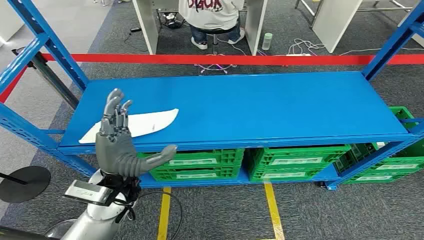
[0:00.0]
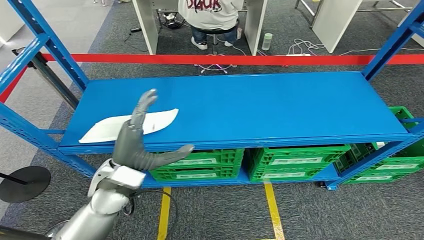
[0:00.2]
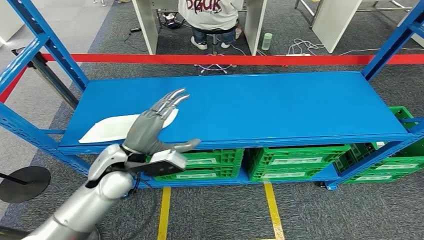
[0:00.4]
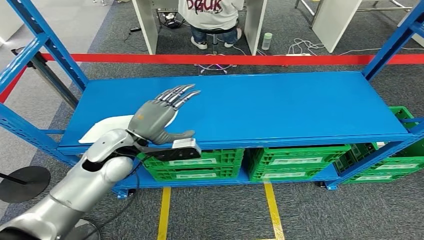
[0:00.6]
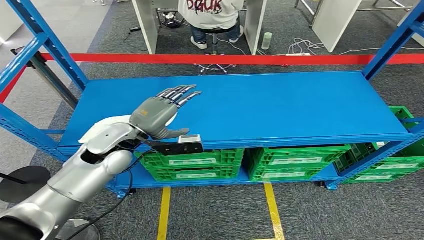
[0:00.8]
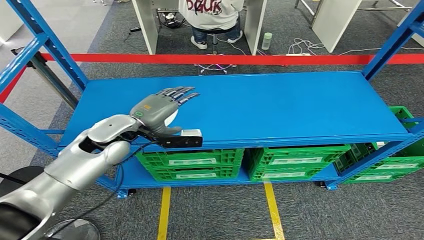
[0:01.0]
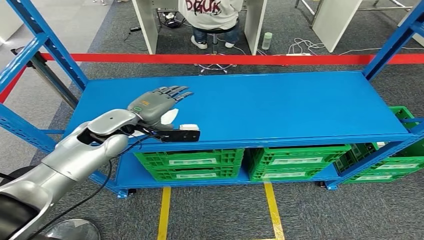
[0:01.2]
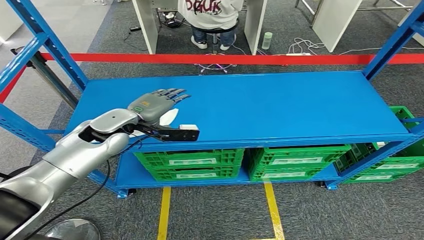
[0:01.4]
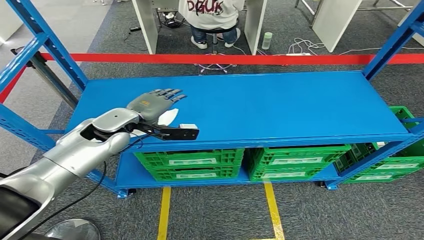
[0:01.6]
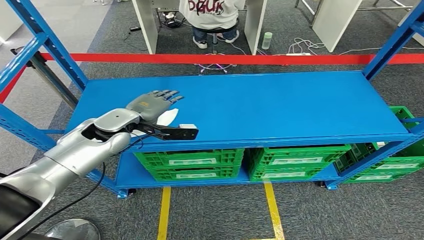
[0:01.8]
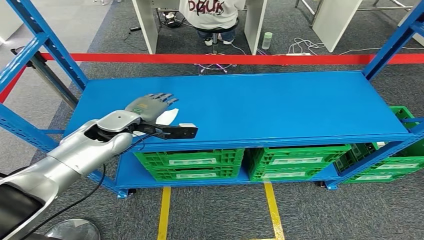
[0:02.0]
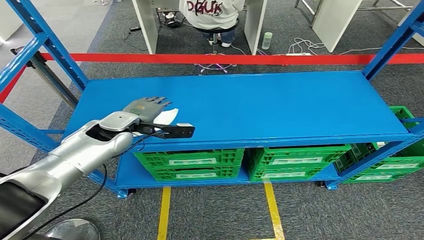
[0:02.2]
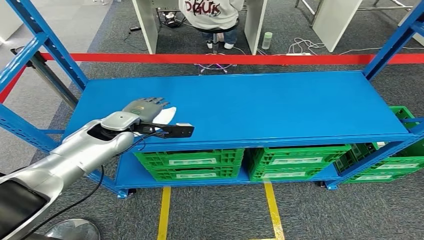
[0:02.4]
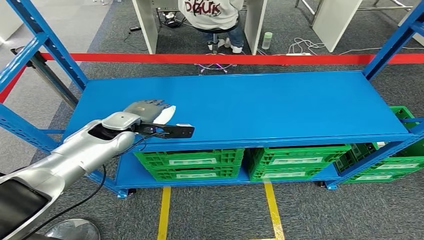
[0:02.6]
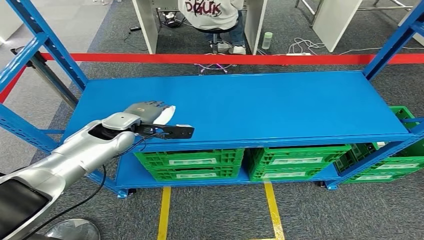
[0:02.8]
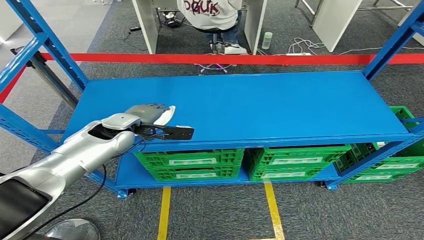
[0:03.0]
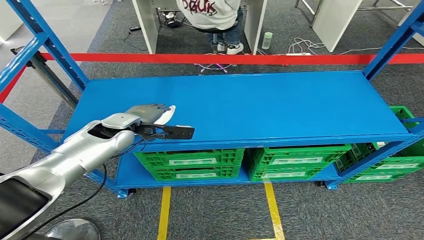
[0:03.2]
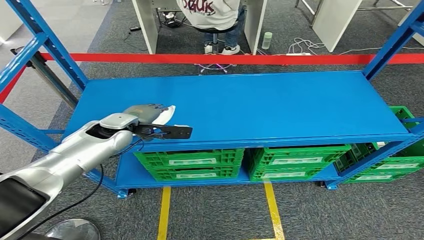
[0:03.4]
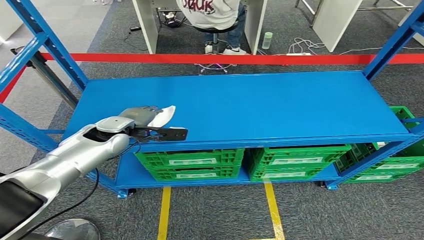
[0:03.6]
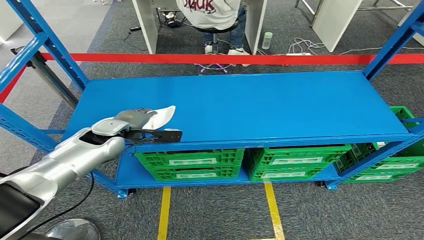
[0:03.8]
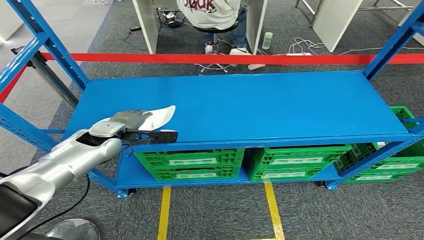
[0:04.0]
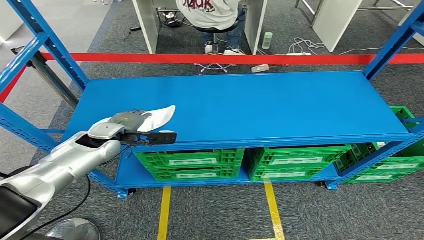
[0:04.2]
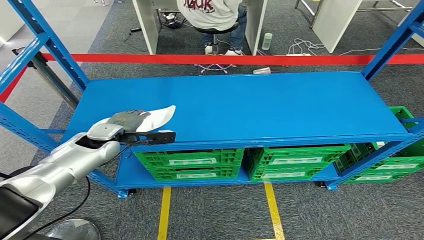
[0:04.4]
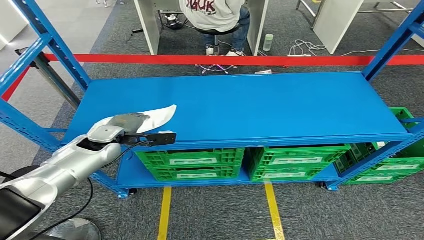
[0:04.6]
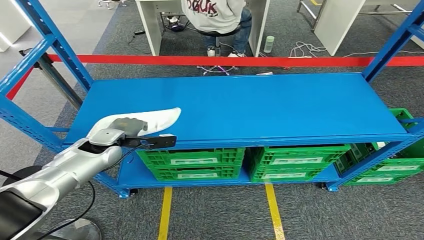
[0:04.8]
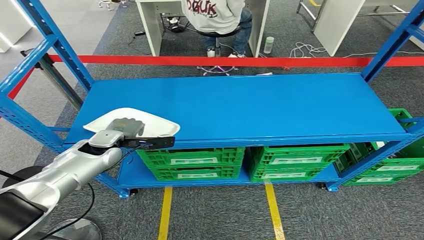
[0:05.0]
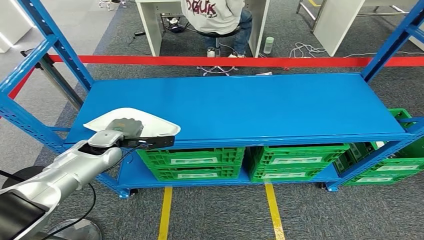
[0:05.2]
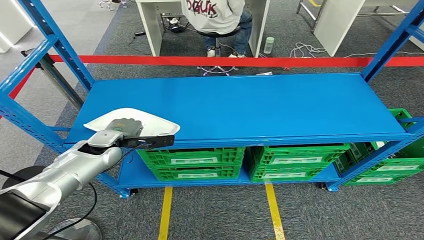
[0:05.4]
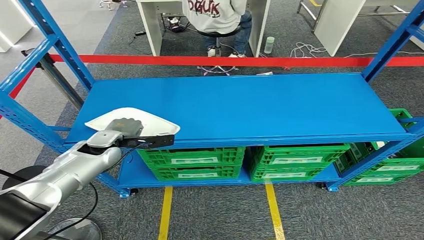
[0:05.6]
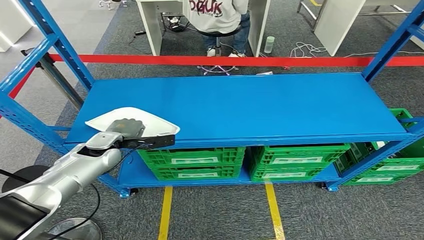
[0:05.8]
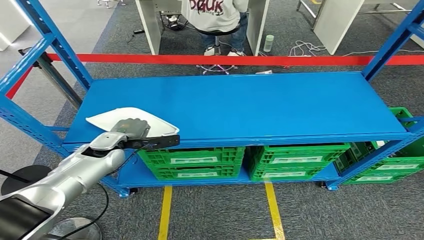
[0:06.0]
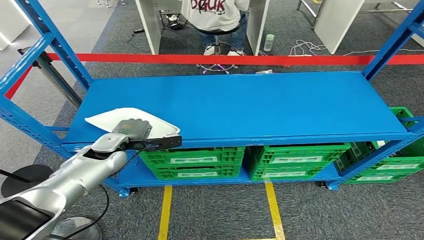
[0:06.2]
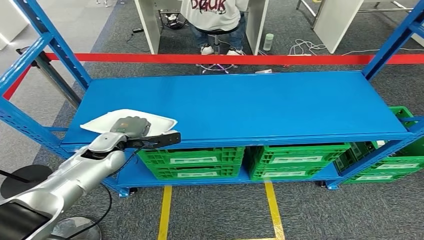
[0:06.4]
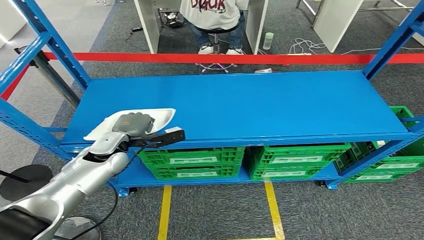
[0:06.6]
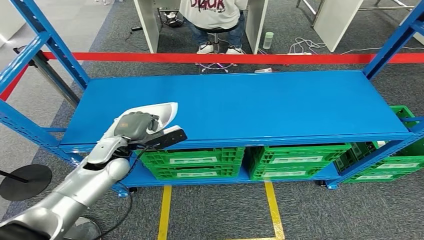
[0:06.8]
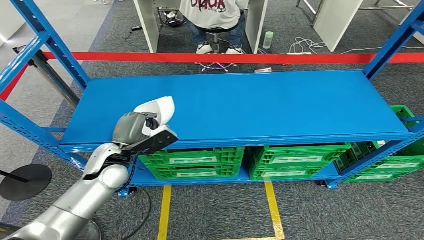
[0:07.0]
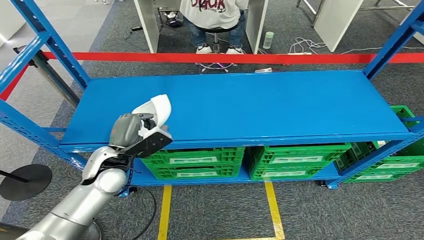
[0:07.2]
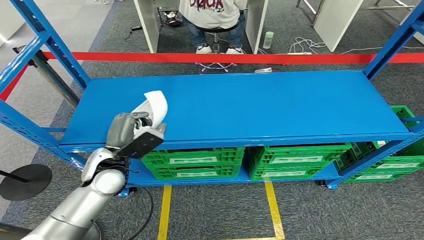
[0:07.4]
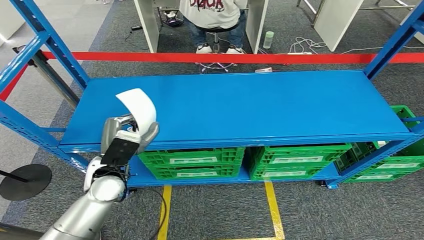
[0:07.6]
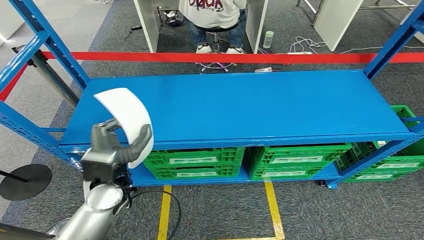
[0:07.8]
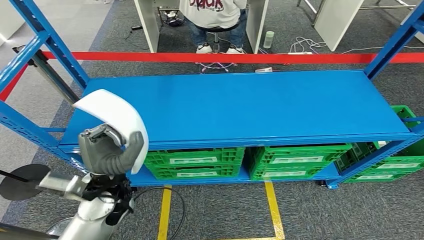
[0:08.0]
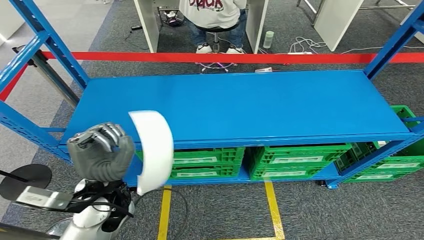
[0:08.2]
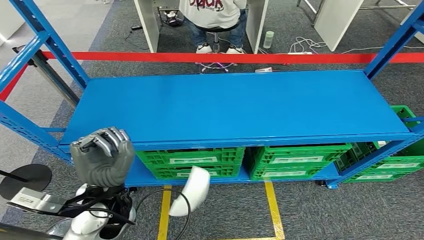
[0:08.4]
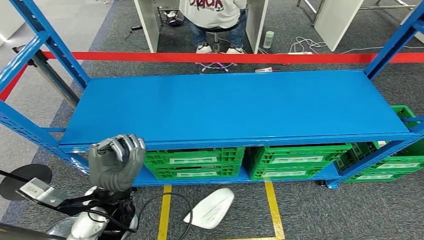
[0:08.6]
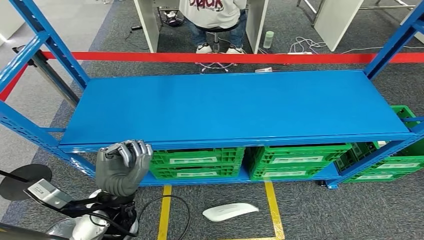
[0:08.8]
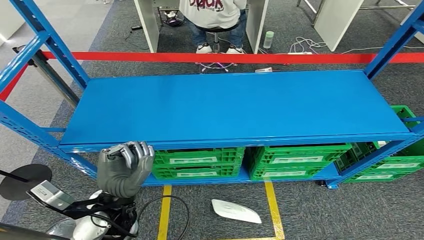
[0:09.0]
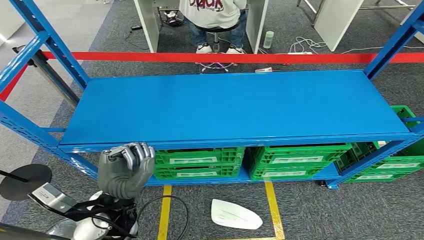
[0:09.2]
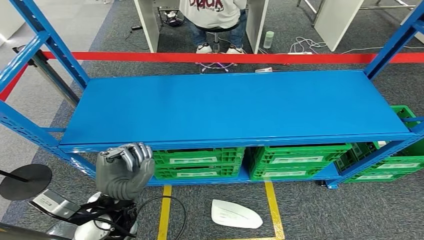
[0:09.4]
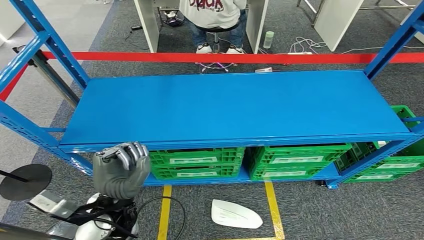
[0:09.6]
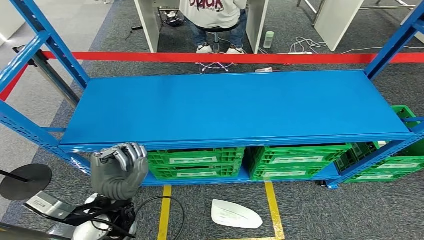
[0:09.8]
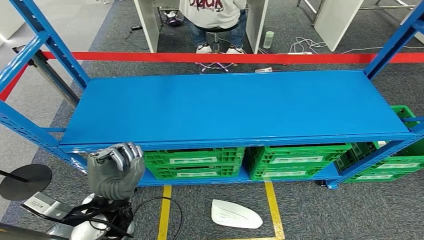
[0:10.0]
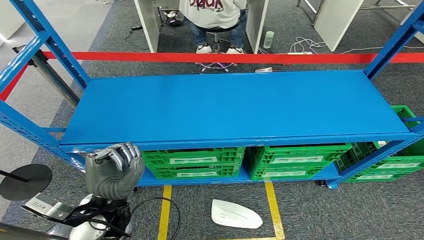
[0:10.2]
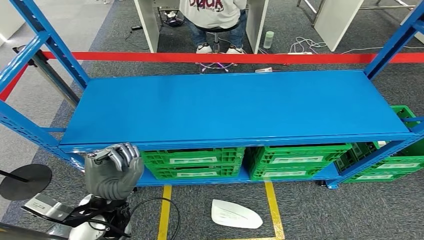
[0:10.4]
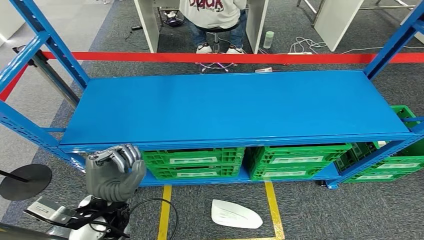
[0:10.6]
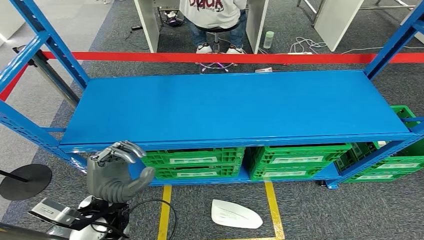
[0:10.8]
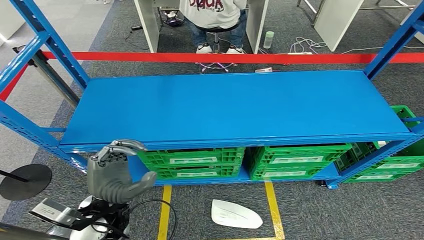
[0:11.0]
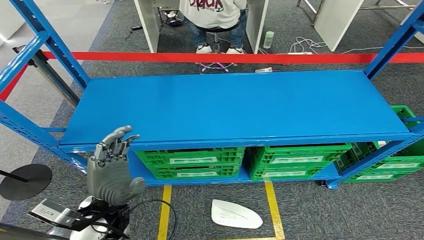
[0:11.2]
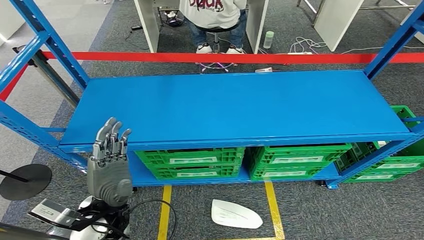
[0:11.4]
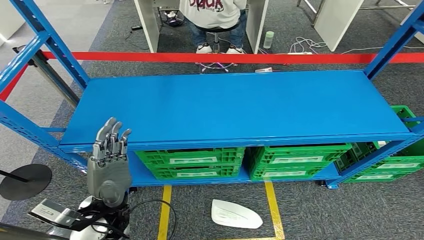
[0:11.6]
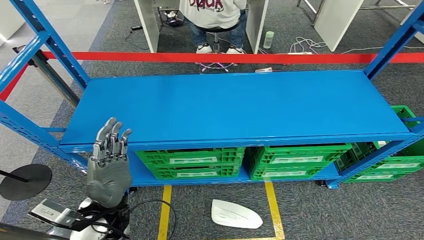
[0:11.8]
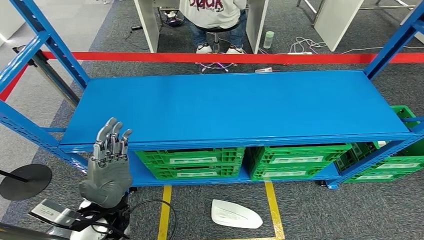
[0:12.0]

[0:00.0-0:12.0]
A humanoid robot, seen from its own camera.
0:03.0 to 0:04.4: The left hand shifts roughly 5 cm to the left.
0:04.4 to 0:06.0: The hands stay close to where they were, moving slightly.
0:07.6 to 0:09.0: The left hand is displaced backward by about 10 cm.
0:09.0 to 0:10.4: The hands make only small movements.
0:10.4 to 0:12.0: The two hands keep their place.

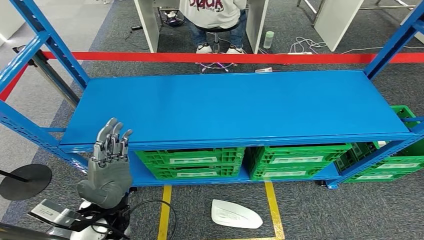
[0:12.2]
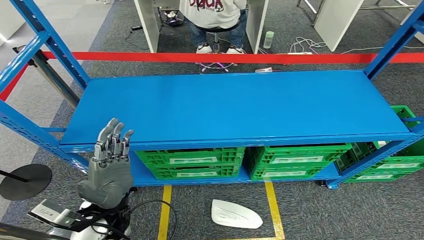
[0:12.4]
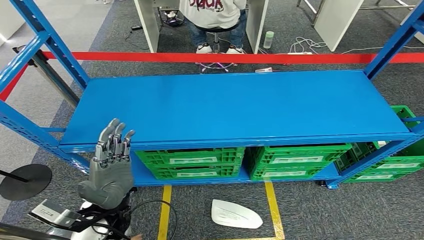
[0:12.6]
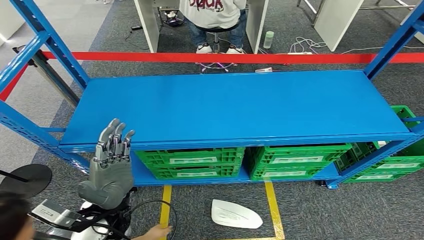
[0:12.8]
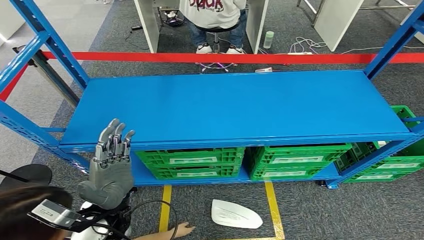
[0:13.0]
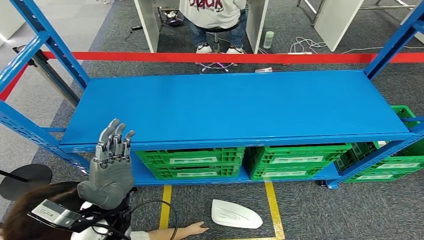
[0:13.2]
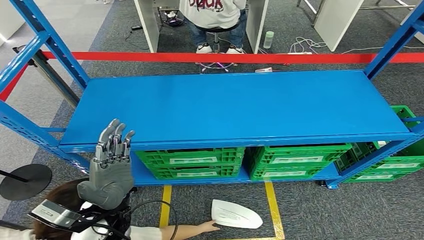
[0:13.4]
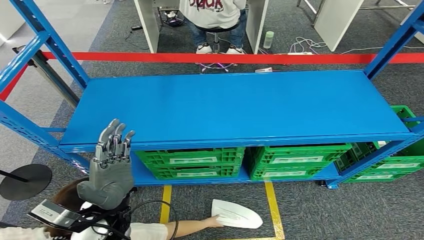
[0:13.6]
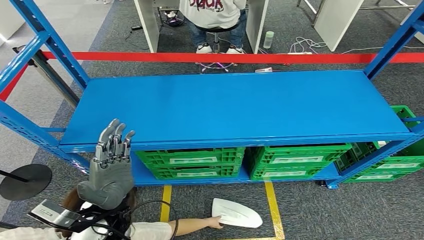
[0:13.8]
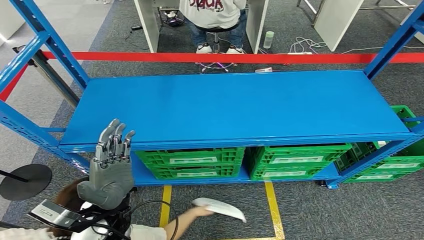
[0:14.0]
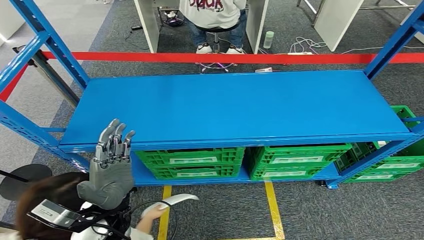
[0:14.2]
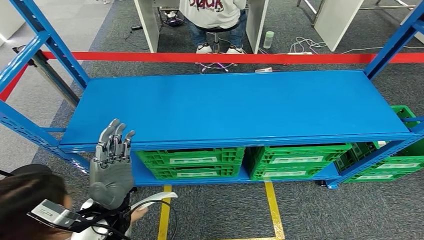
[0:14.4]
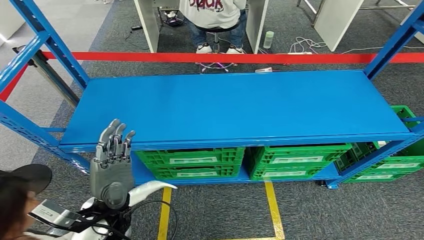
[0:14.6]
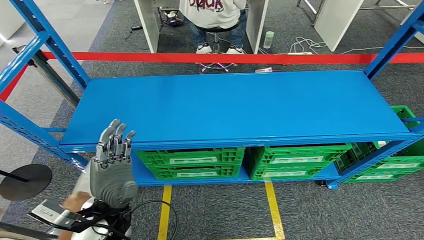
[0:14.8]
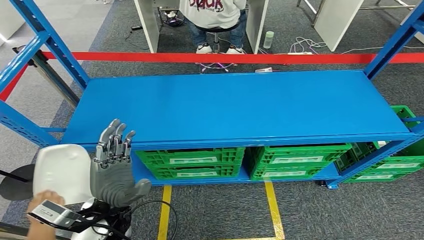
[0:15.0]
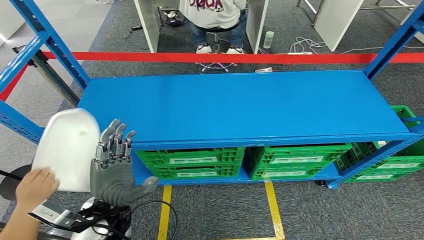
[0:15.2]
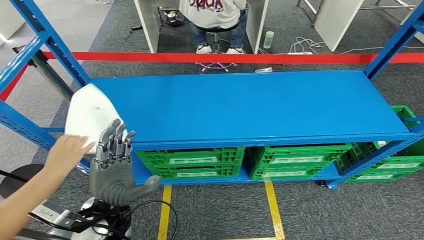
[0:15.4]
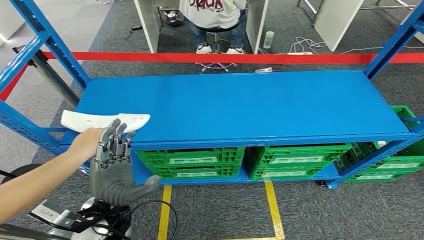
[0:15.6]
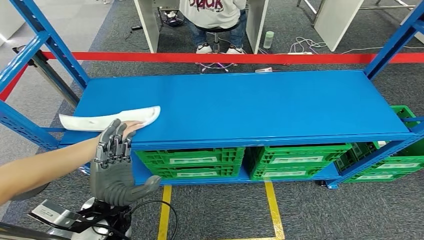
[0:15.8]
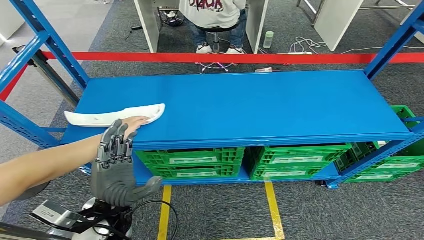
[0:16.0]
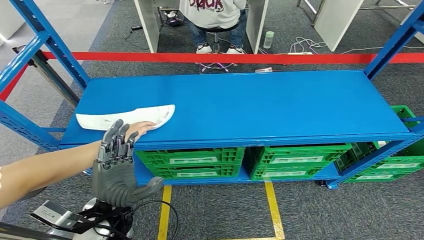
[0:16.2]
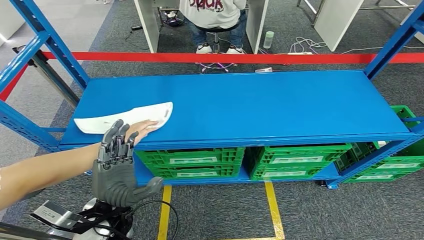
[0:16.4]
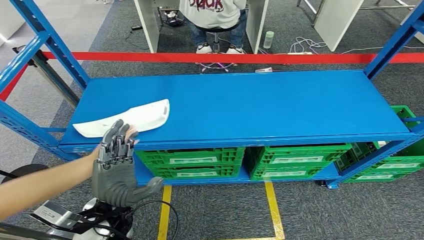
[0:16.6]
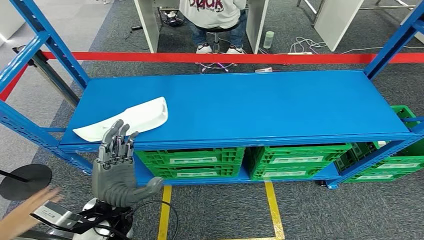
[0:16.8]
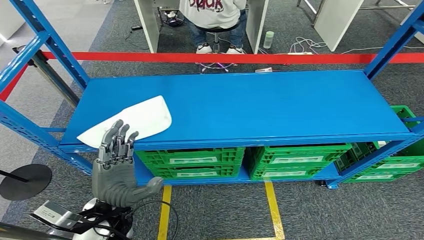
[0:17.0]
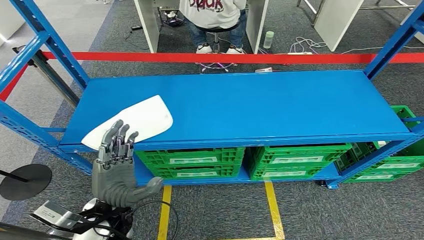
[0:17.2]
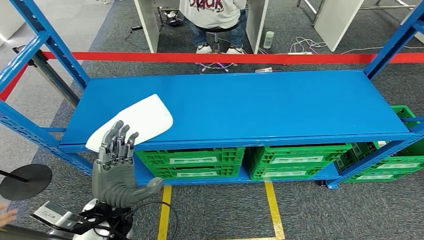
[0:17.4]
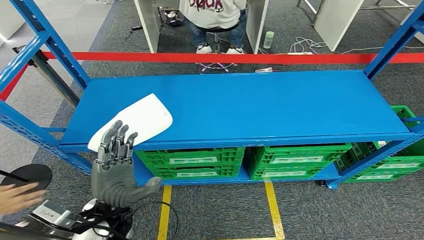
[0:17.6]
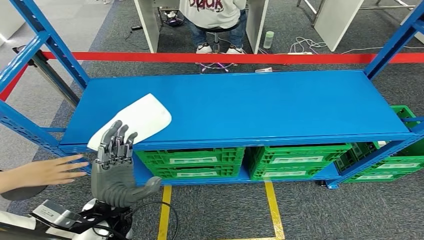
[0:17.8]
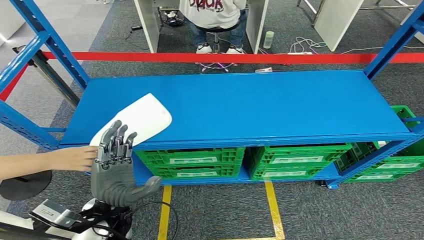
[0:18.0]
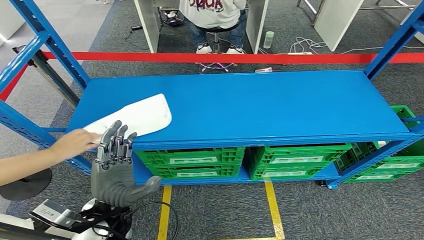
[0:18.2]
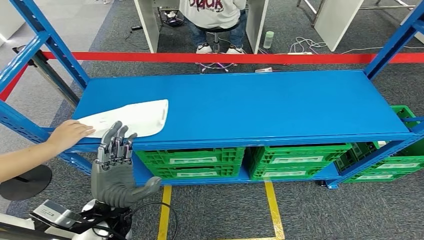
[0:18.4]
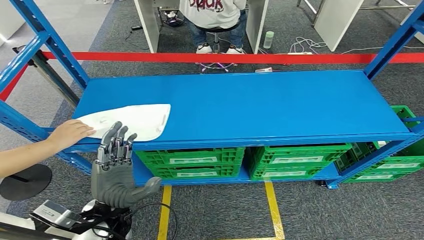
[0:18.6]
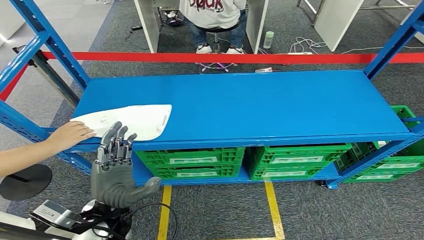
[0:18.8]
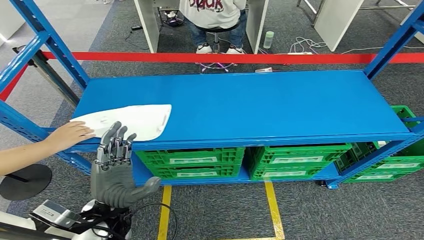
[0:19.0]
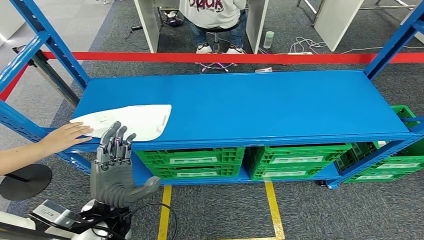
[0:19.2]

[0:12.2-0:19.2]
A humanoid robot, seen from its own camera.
0:12.2 to 0:19.2: Both hands stay put.
